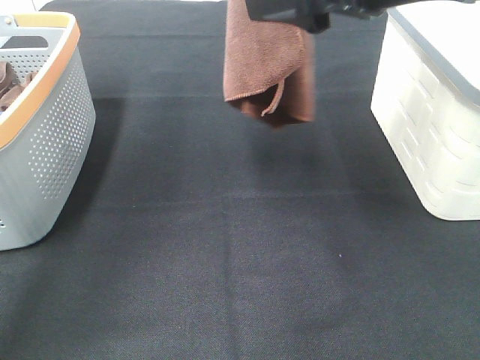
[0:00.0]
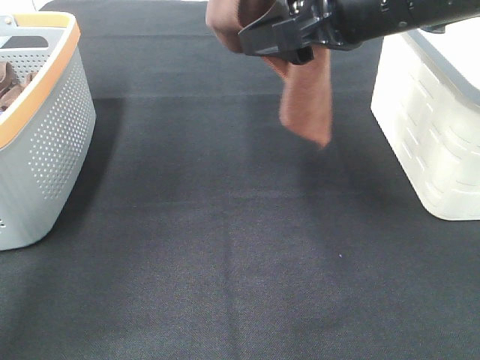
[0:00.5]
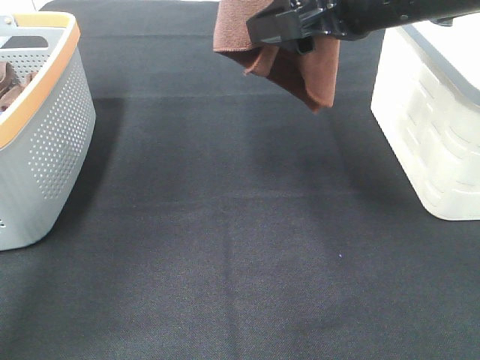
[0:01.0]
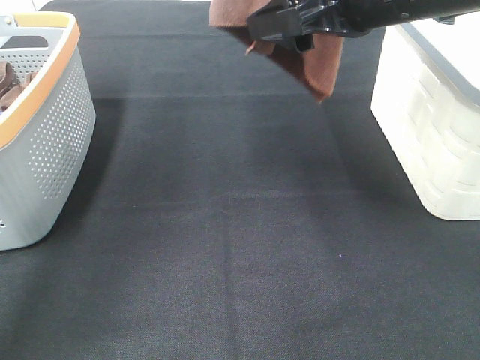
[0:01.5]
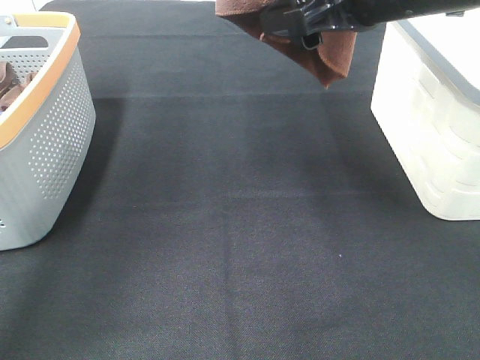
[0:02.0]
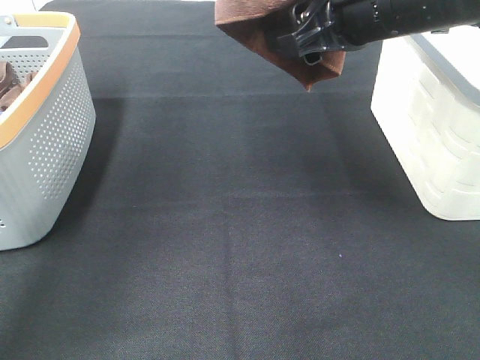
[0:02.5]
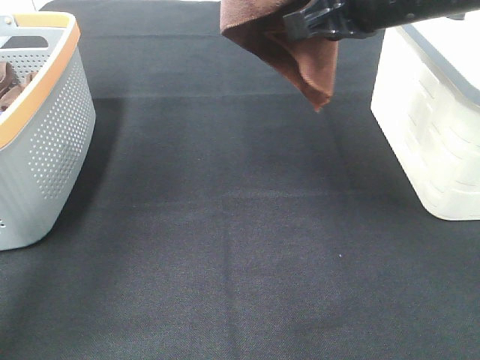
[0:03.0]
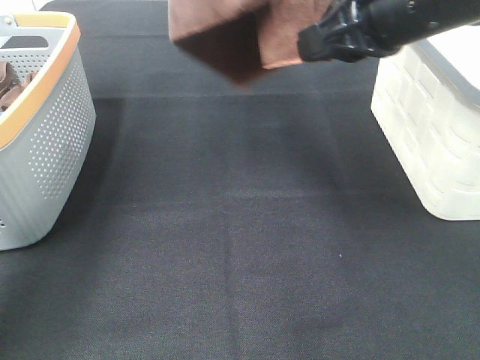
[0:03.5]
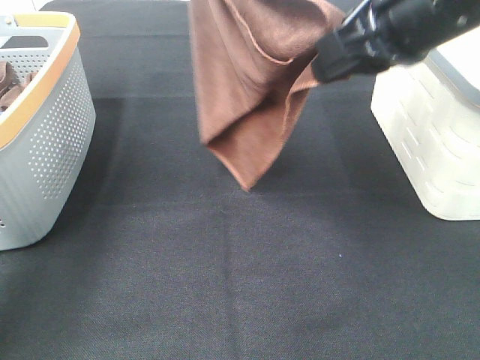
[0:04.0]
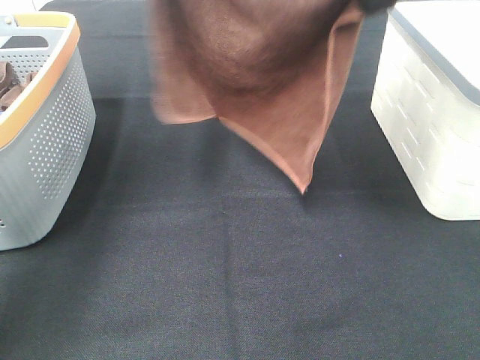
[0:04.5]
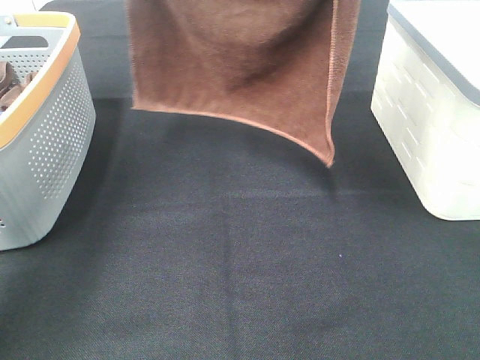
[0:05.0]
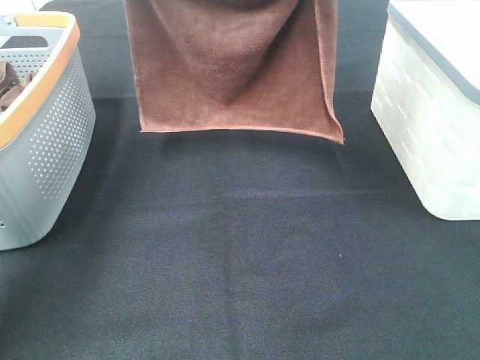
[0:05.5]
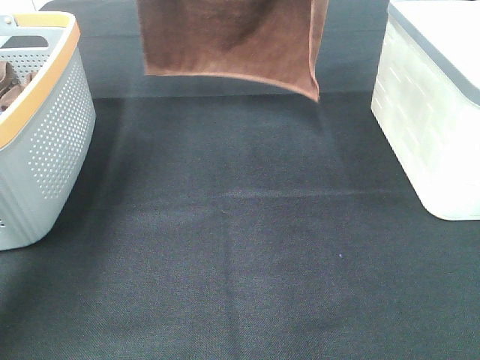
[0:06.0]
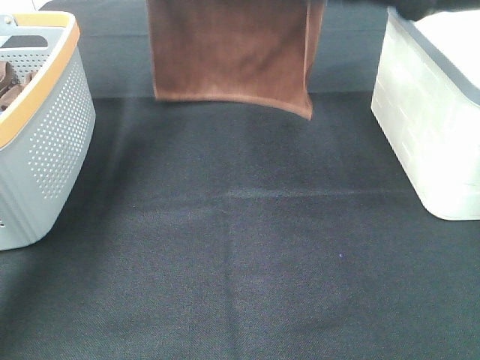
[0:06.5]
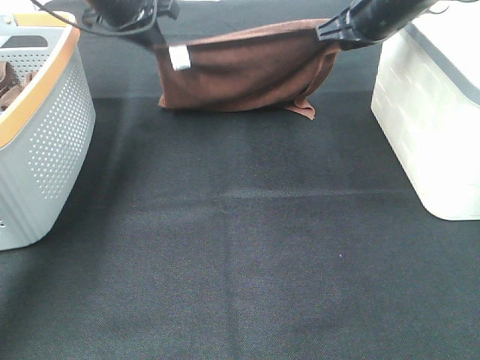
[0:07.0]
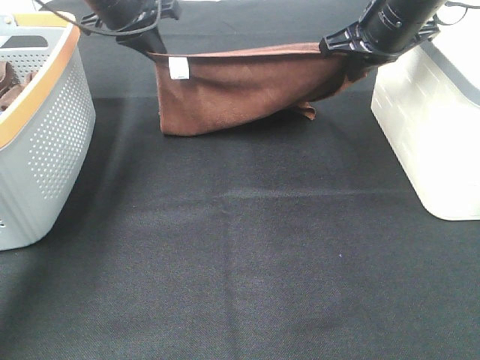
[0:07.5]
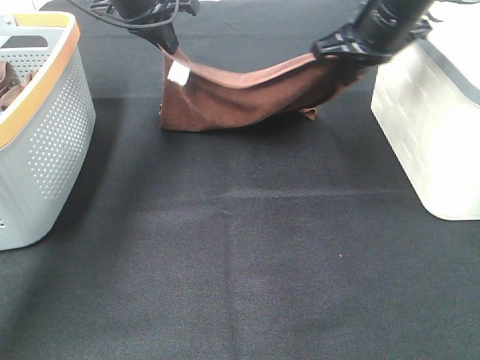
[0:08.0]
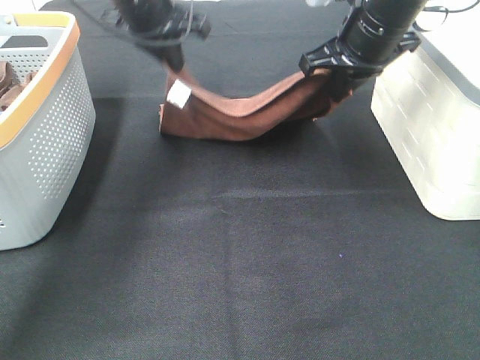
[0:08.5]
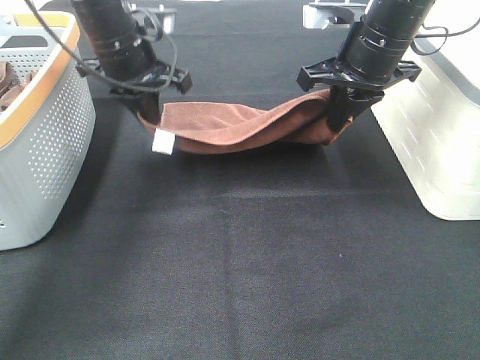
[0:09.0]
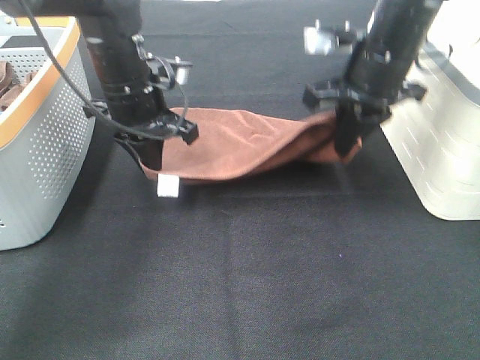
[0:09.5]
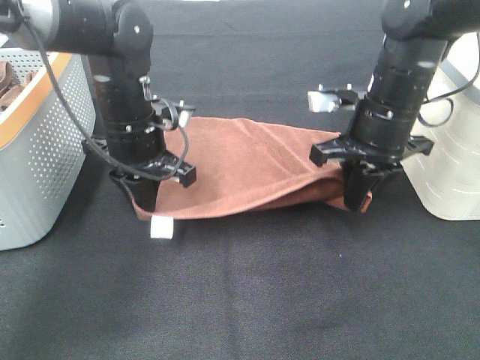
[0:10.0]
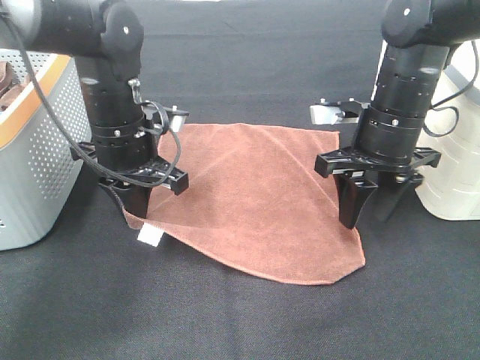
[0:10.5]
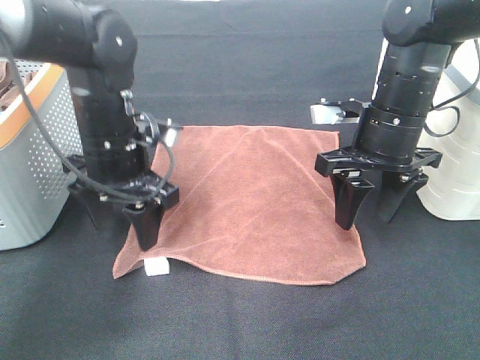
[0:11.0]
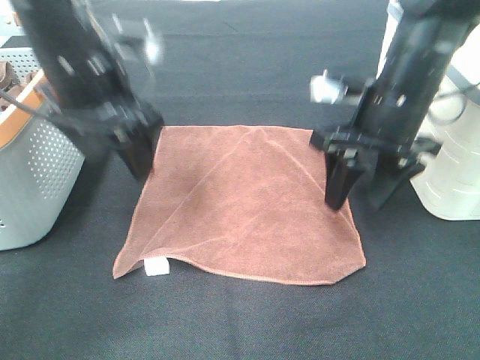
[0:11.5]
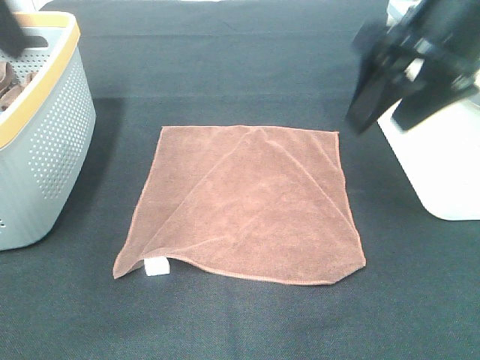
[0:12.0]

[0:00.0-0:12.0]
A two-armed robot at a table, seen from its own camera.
Task of the whole recording: Remove the towel and place it.
Step, 0:02.0 to 0:06.0: Left hand: spread the brown towel flat on the table.
Step, 0:02.0 to 0:06.0: Right hand: spread the brown towel flat on the table.
0:02.0 to 0:04.0: The right gripper closes up. Meanwhile the left gripper is displaced to the left and downward by approximately 10 cm.
0:04.0 to 0:06.0: The left gripper is displaced forward and downward by roughly 10 cm. The right gripper shifts about 20 cm forward.
0:06.0 to 0:08.0: The right gripper shifts some 5 cm downward, and goes forward and returns, some 5 cm each way; the left gripper goes some 15 cm downward and to the right.
0:08.0 to 0:10.0: The right gripper goes about 10 cm downward and backward. Meanwhile the left gripper heads backward and downward, covering approximately 20 cm.
0:10.0 to 0:12.0: The right gripper moves upward and backward, approximately 20 cm, and opens. The left gripper moves upward and backward, about 30 cm, and opens its fingers.

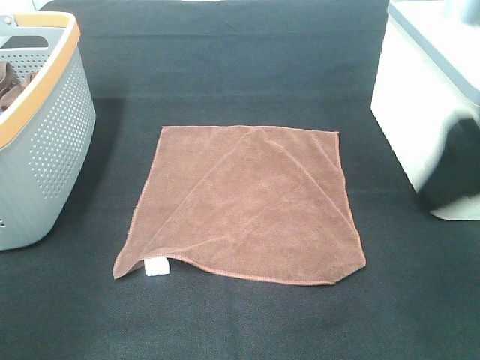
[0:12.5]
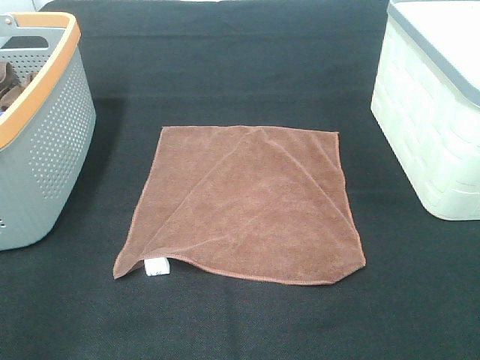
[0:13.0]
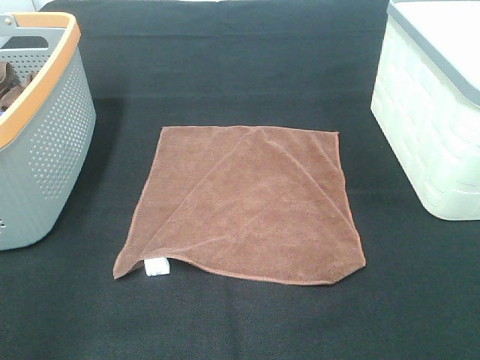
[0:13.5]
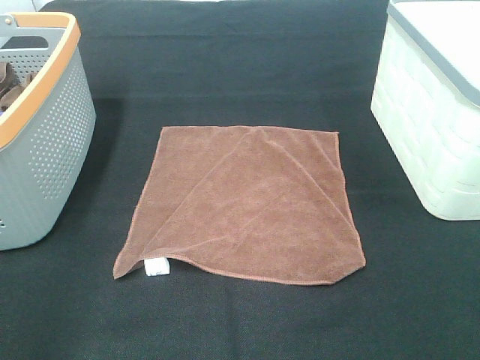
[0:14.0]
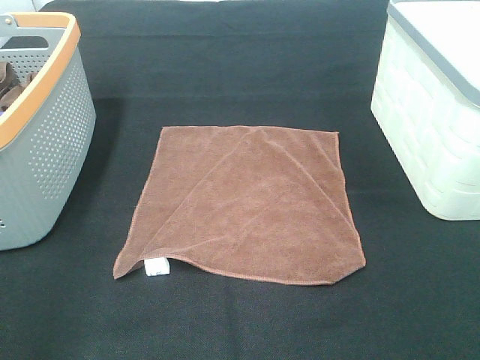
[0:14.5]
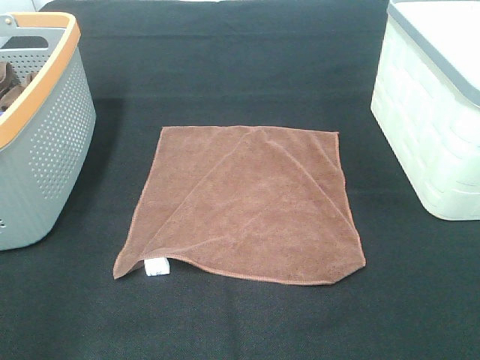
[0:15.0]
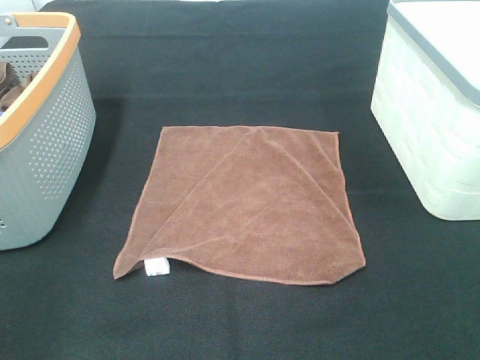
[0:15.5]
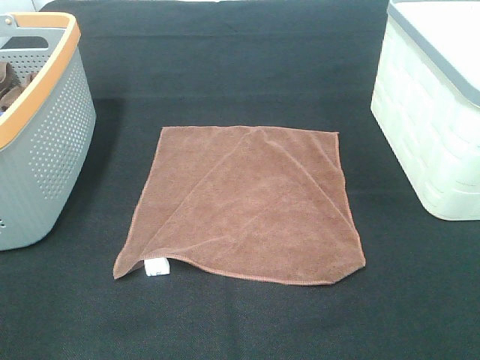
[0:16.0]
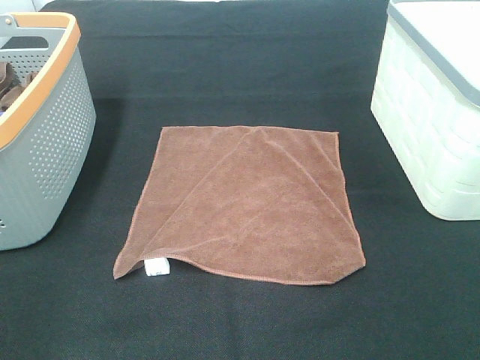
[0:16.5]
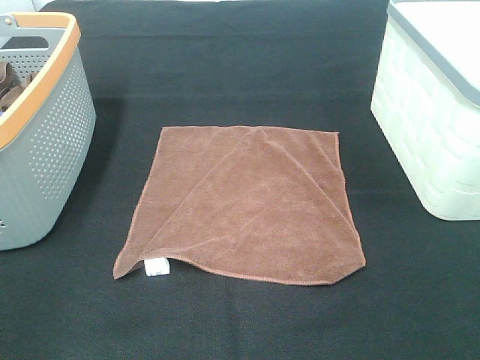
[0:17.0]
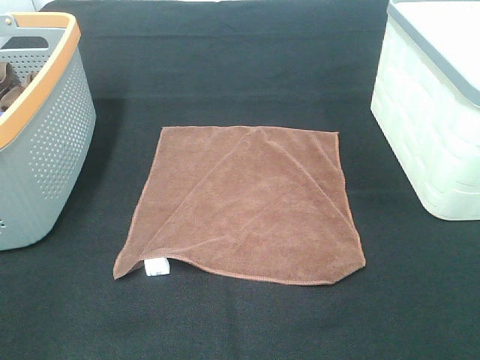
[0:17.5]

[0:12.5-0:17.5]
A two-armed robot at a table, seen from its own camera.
Task of the whole recording: Remove the towel and place it.
0:12.5 to 0:15.0: The right gripper heads backward and to the right, covering roughly 20 cm. Meanwhile the left gripper goes some 10 cm downward and backward.

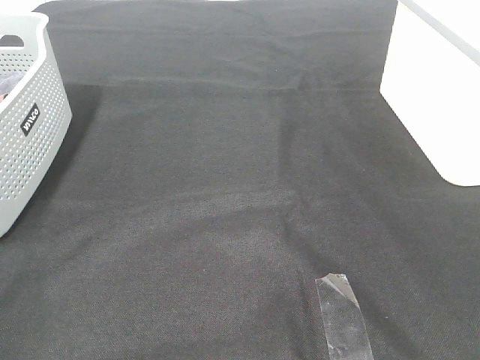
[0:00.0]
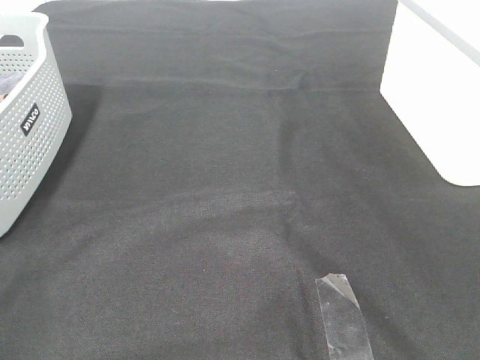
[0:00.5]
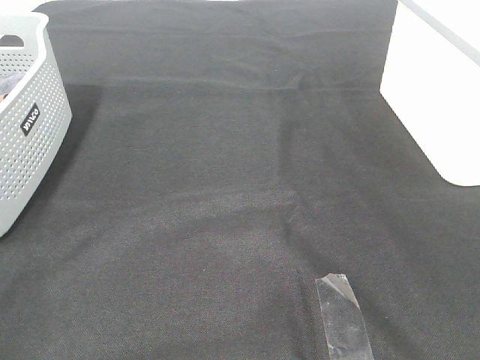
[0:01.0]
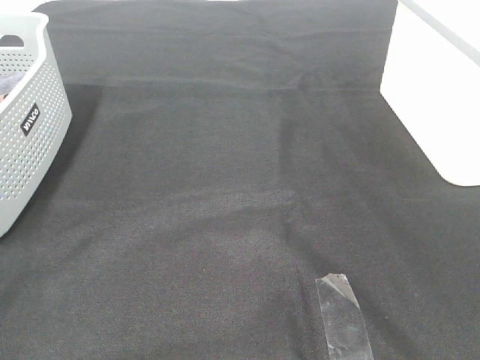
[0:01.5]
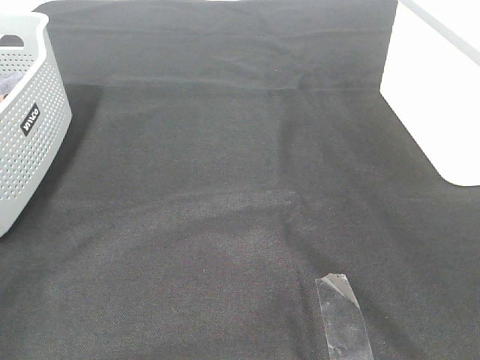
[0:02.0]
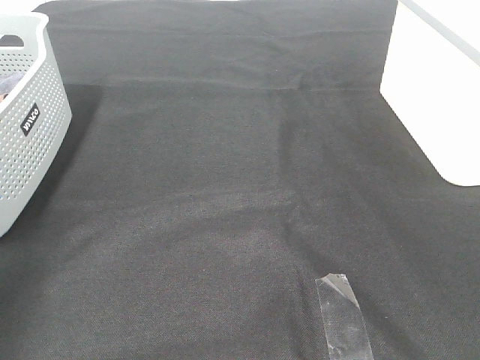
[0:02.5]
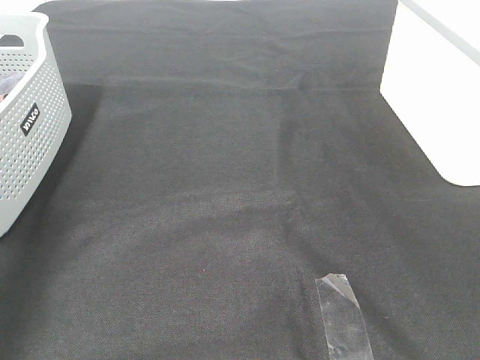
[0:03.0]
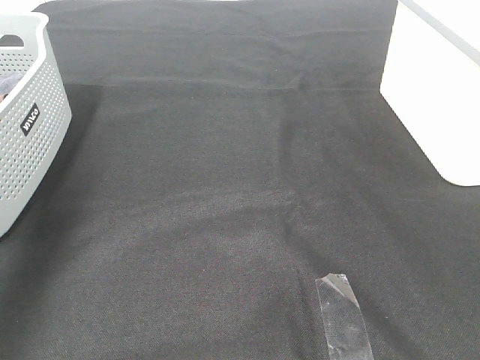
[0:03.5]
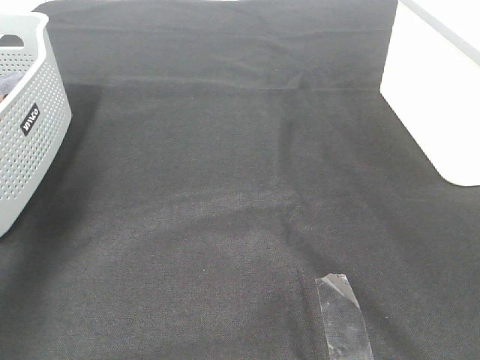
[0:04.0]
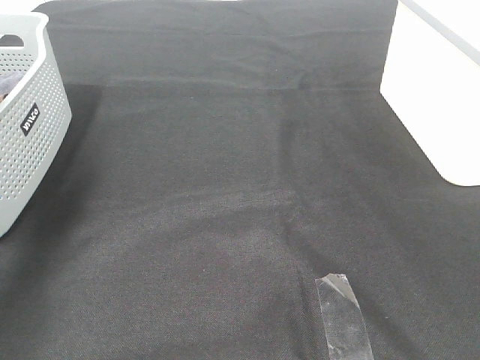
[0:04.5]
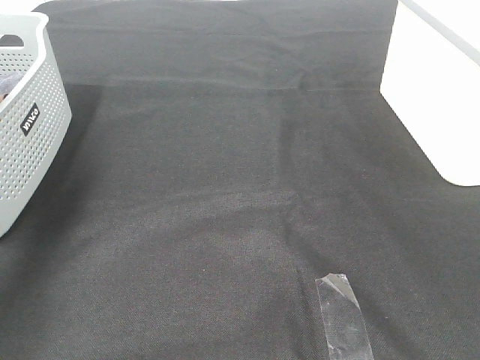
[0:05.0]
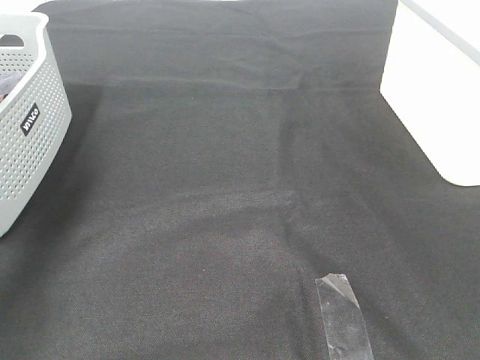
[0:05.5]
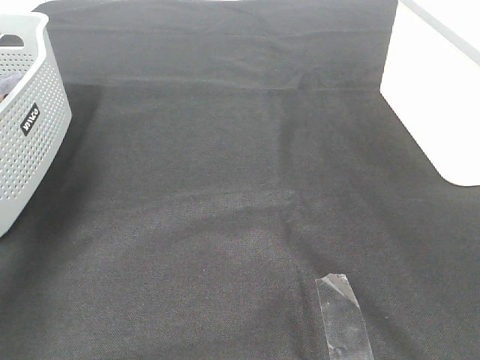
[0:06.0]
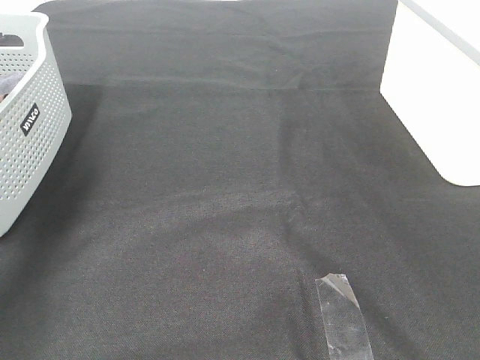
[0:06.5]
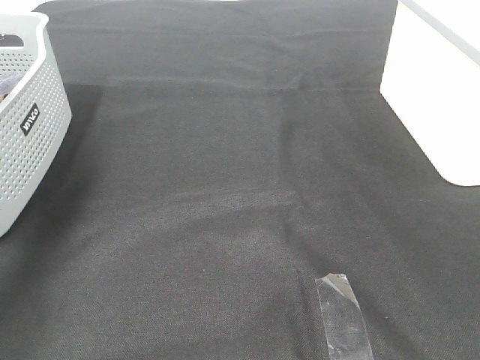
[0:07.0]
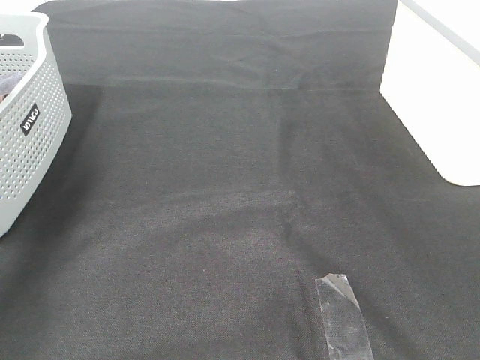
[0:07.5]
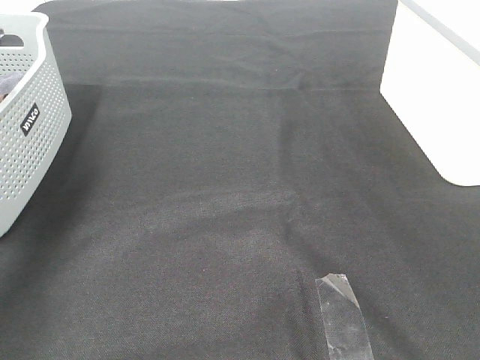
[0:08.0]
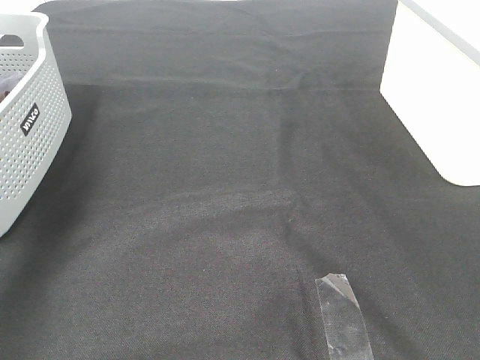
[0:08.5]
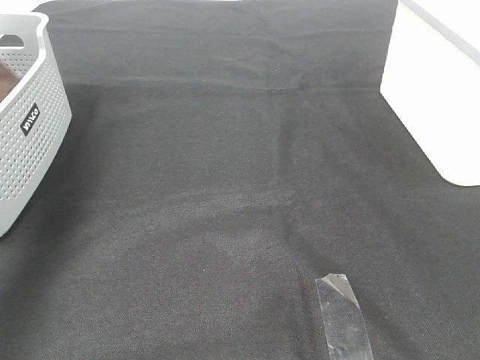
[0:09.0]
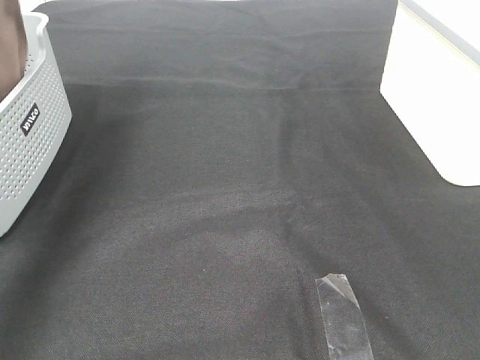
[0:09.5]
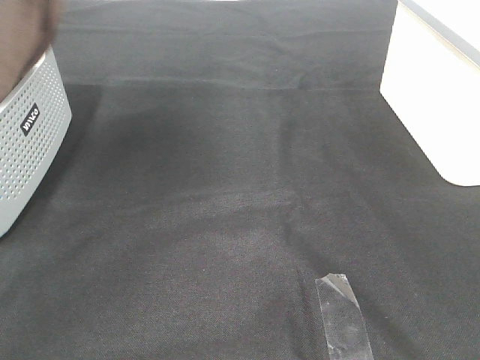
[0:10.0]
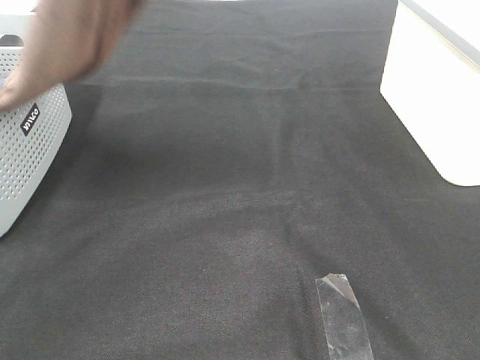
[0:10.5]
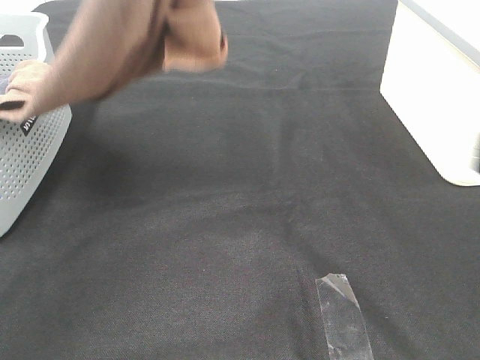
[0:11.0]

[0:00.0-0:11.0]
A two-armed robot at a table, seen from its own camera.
Task of the whole recording: Remove the towel and place it.
0:02.0 to 0:03.5: The left gripper goes about 25 cm forward.
0:07.5 to 0:09.0: The left gripper goes approximately 20 cm upward.
0:09.0 to 0:11.0: The left gripper is displaced to the right by about 20 cm. Meanwhile the right gripper shifts approximately 10 cm forward.
